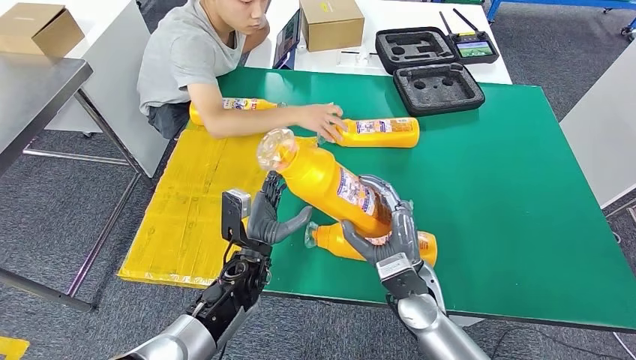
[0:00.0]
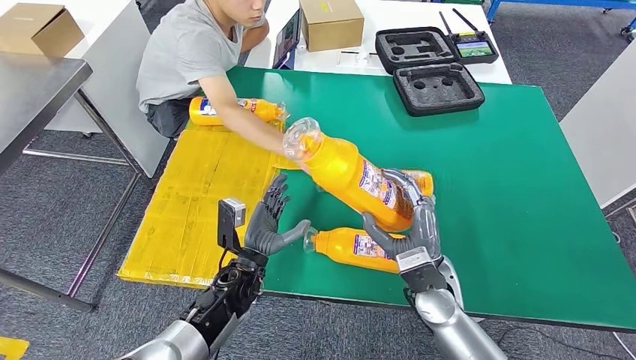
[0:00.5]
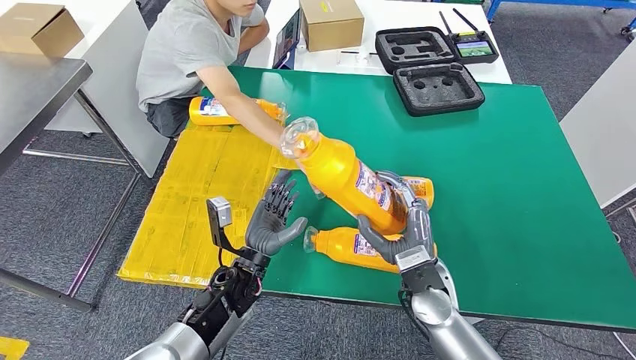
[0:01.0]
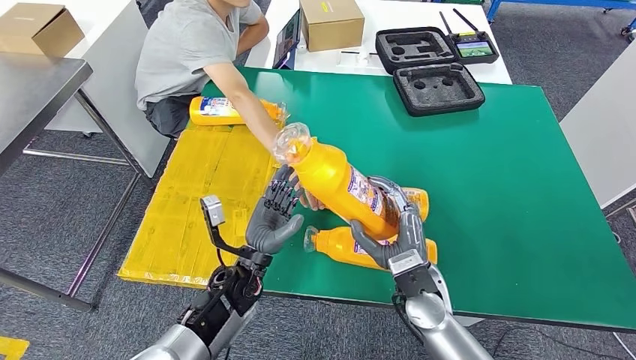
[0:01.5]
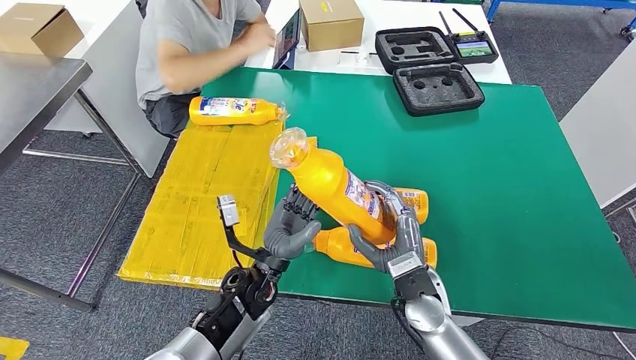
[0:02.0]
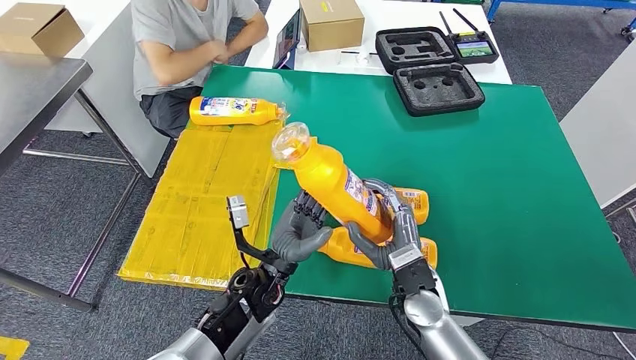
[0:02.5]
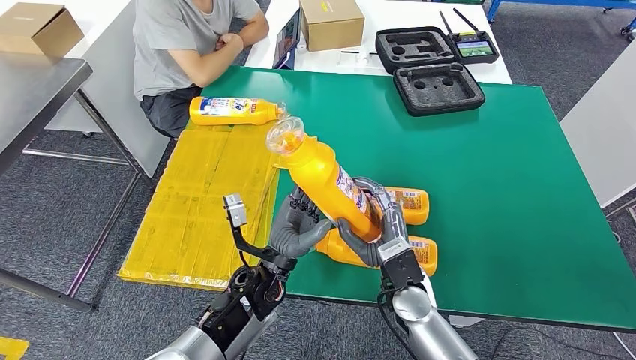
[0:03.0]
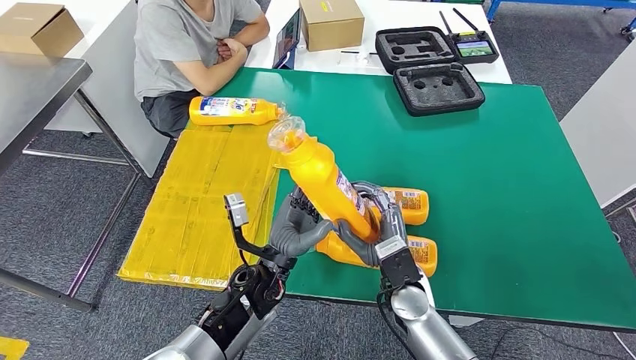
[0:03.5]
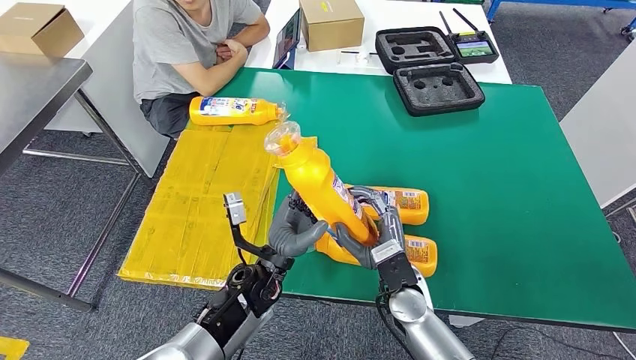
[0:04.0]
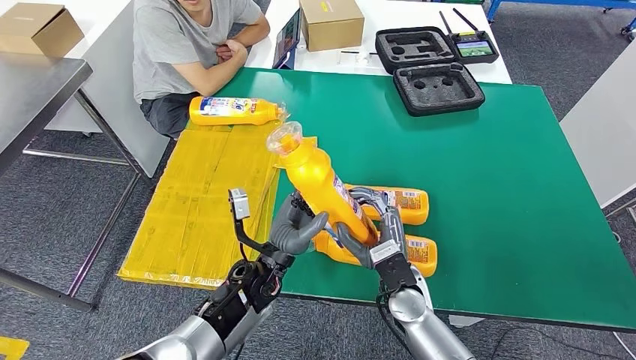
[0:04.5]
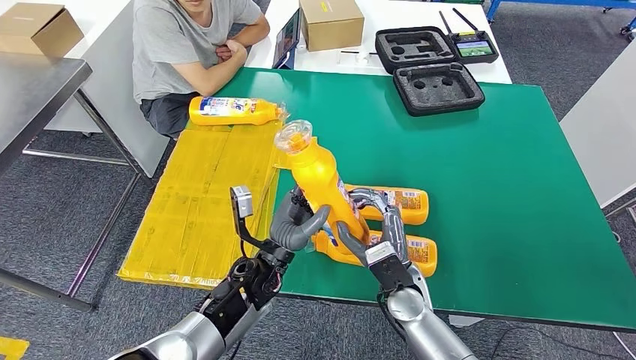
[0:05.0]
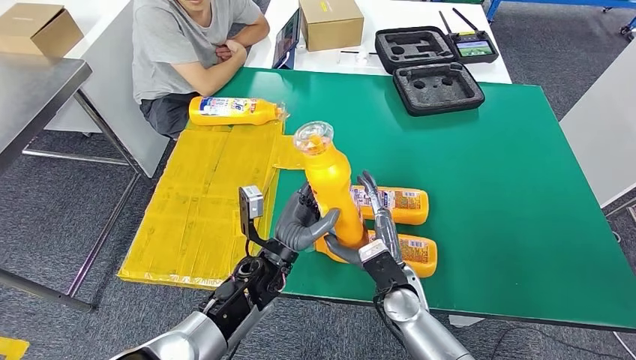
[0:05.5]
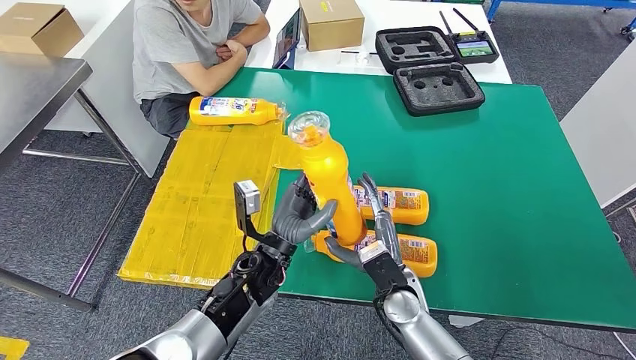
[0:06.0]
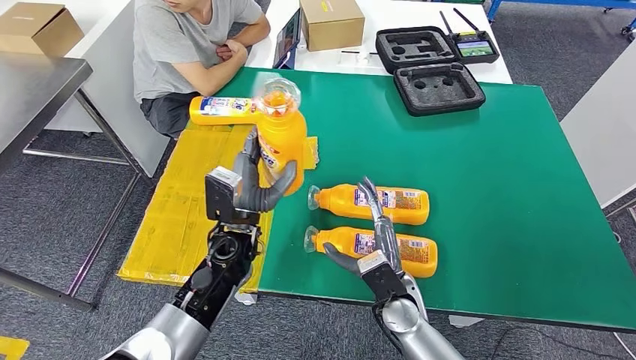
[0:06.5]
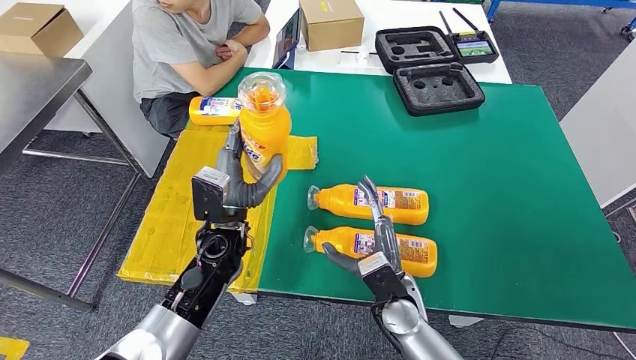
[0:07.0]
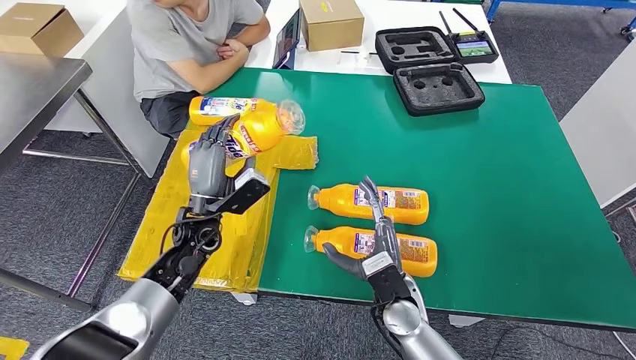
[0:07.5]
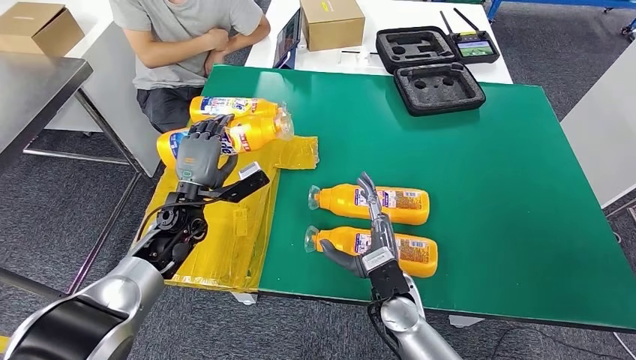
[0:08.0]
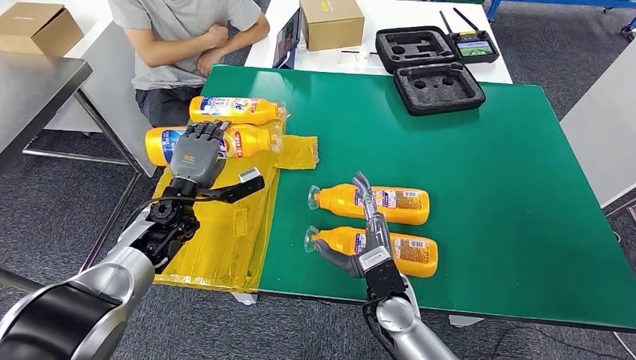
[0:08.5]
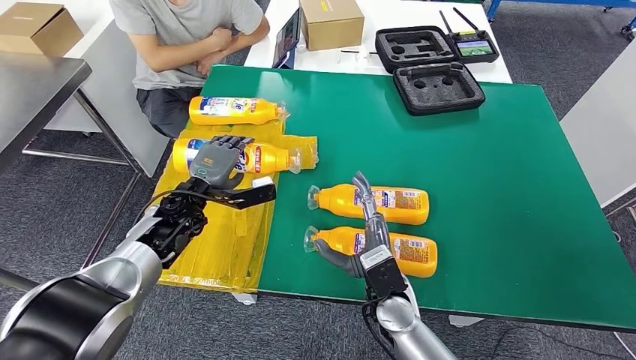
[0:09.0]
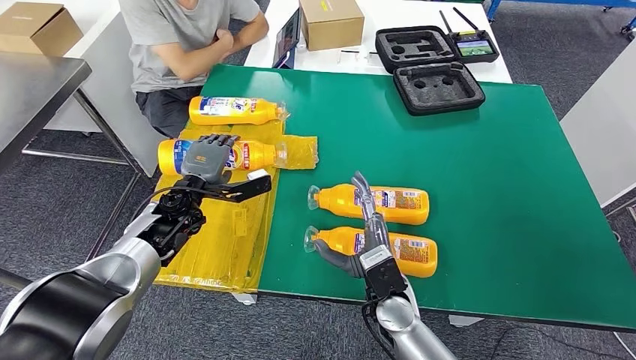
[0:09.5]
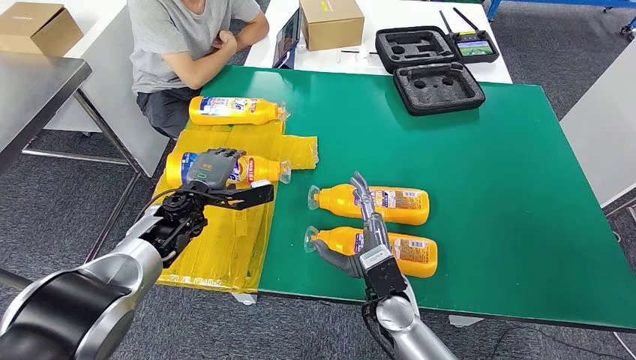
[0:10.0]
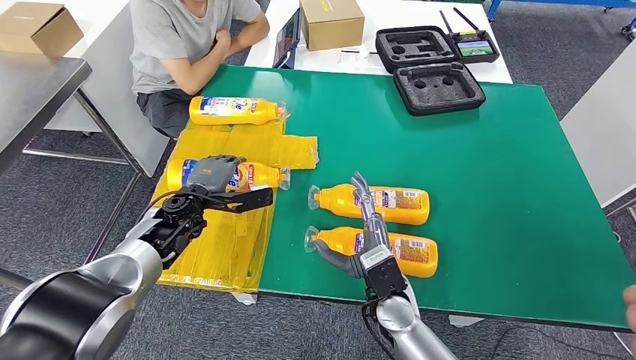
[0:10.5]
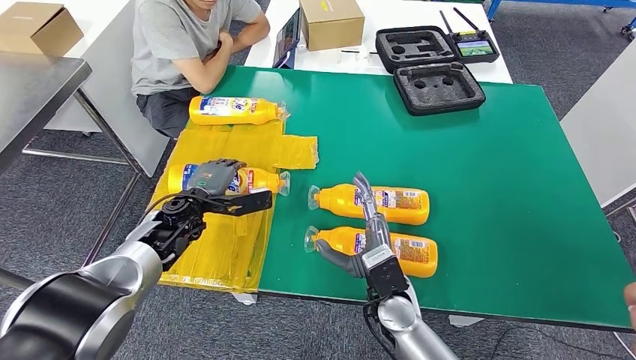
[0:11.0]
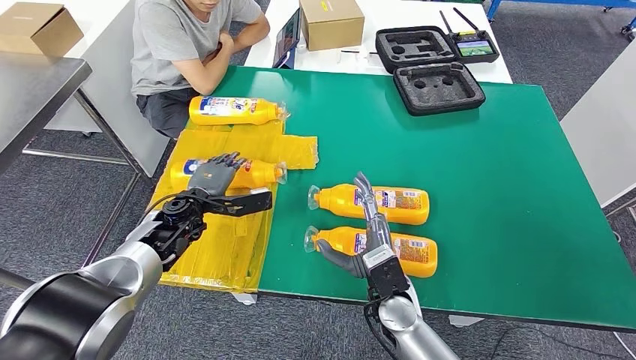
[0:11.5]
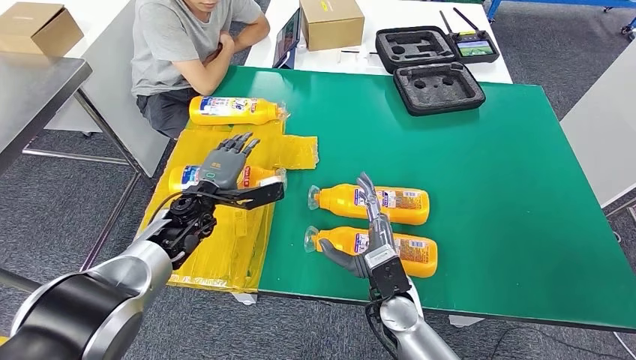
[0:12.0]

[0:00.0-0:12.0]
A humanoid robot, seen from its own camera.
Step, 0:00.0 to 0:11.0: Flip the fast-moving consumer goods bottle to the front side.
0:02.0 to 0:06.0: The hands make only small movements.
0:10.0 to 0:12.0: The hands stay close to where they were, moving slightly.

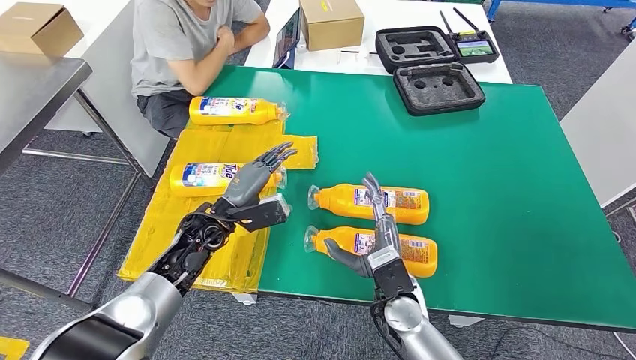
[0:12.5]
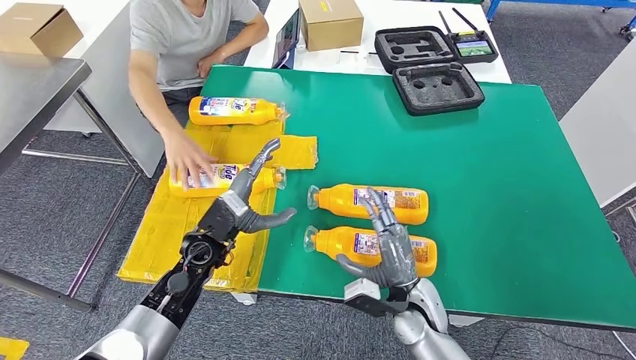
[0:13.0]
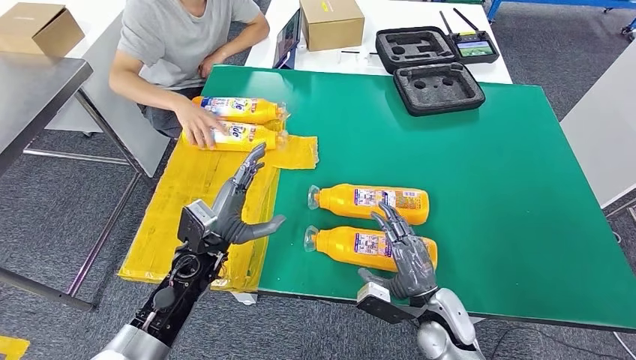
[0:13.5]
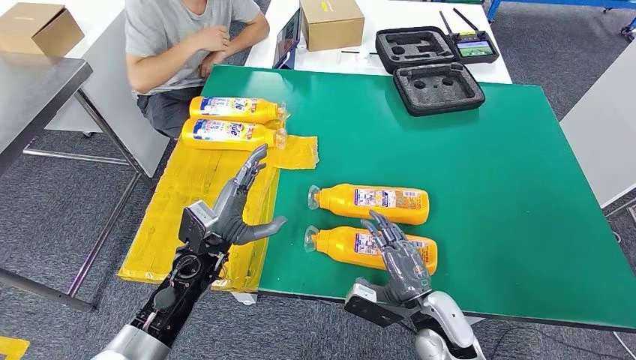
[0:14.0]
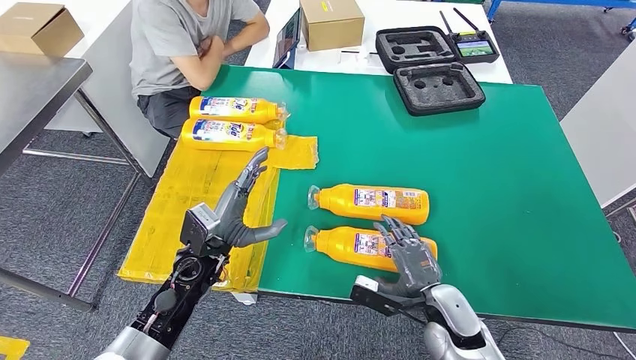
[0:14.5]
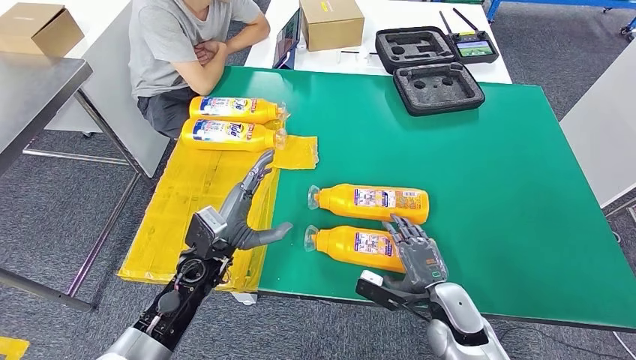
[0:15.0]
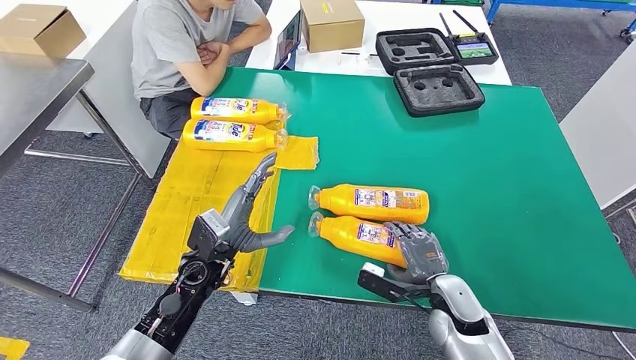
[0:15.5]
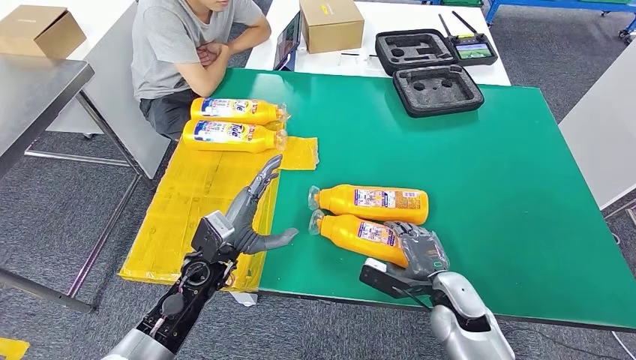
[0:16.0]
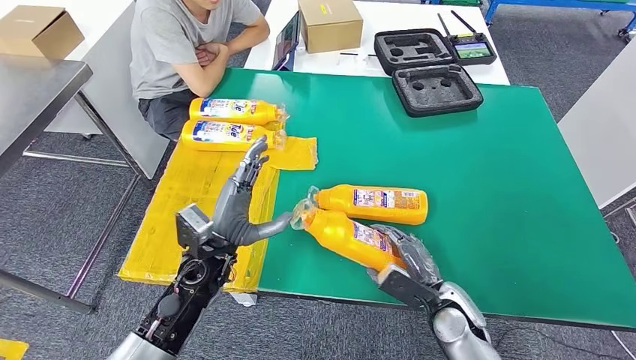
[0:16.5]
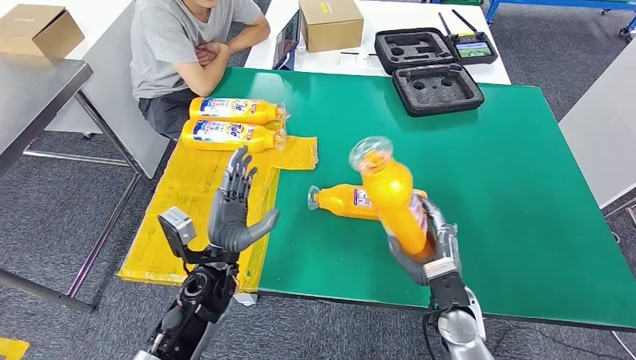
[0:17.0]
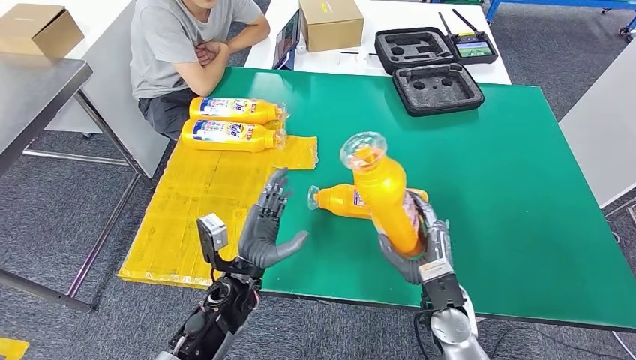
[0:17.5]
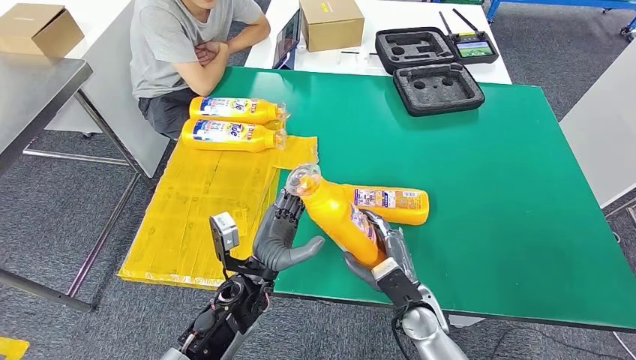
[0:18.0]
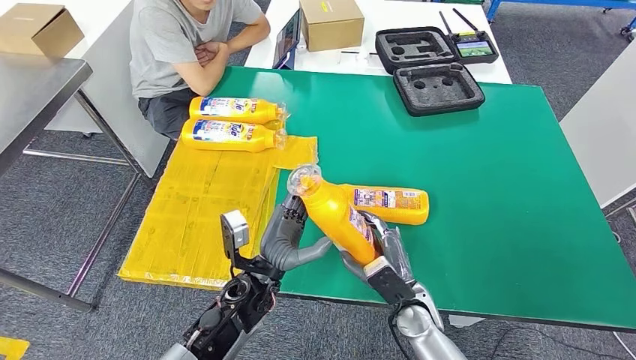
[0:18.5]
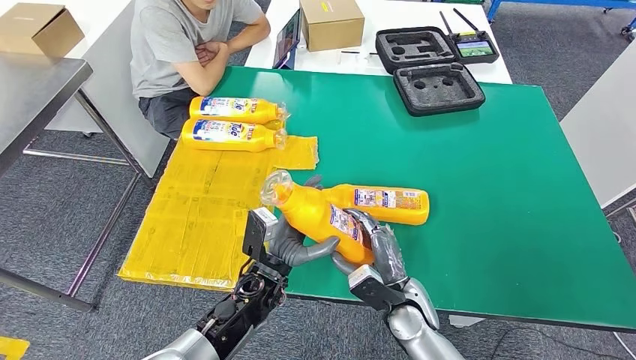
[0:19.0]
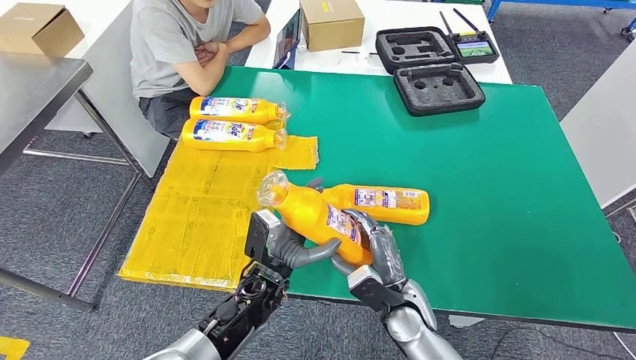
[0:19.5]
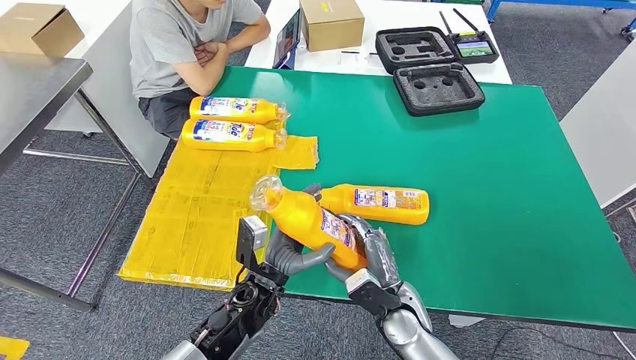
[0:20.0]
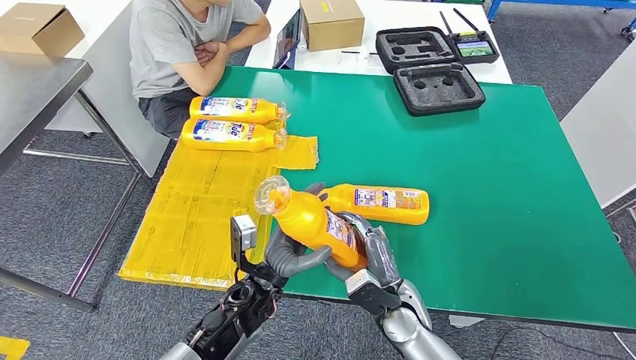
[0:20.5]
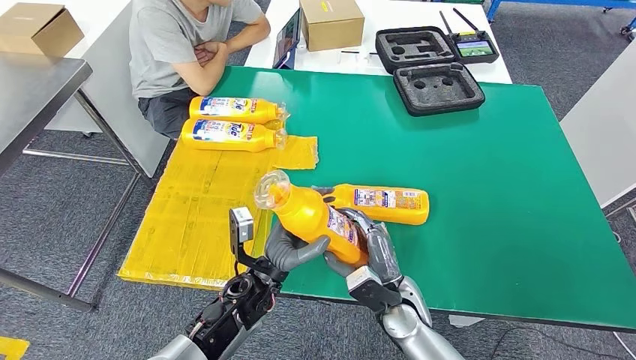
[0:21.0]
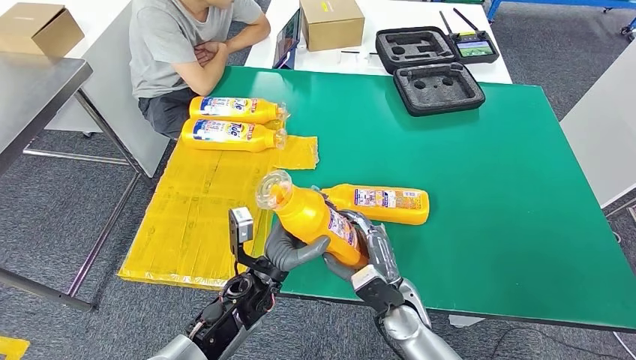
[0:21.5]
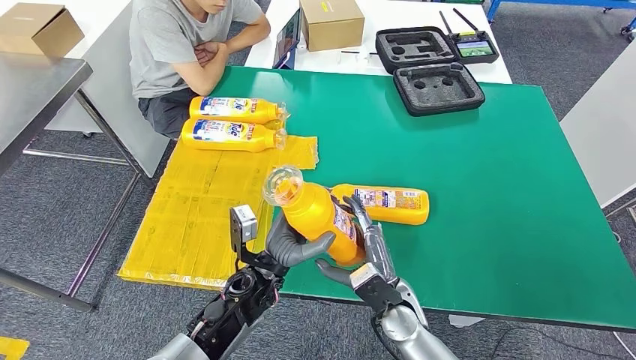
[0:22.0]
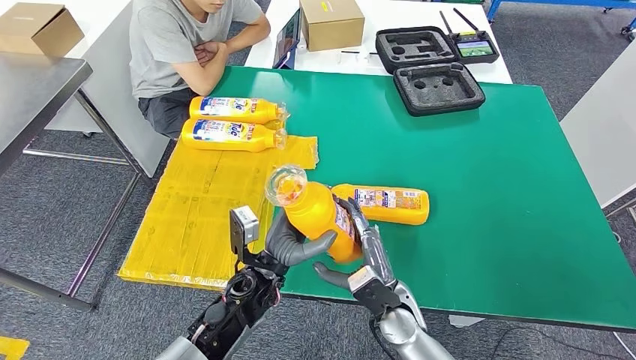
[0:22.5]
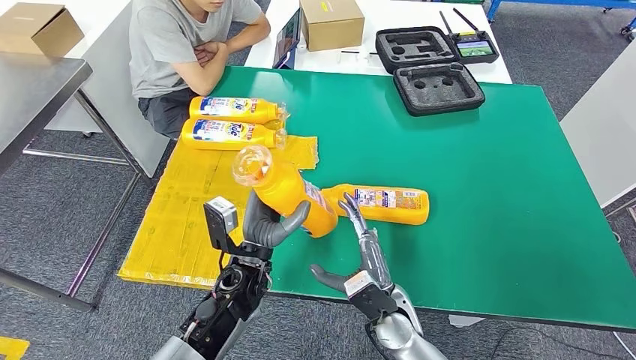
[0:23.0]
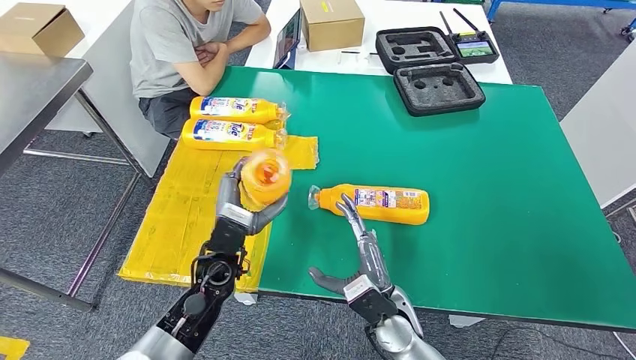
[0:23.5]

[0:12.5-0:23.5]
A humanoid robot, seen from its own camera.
Step, 0:12.5 to 0:17.0: Pick up the fast-moving consumer goods bottle from the table.
0:12.5 to 0:14.5: The left hand shifts some 5 cm backward; the right hand goes approximately 10 cm to the right.
0:14.5 to 0:16.0: There are only small adjustments of the hands.
0:16.0 to 0:18.0: The right hand moves to the left, some 5 cm. The left hand moves to the right, approximately 10 cm.
0:18.0 to 0:21.5: The hands move only a little.
0:21.5 to 0:23.5: The left hand shifts about 5 cm to the left.
